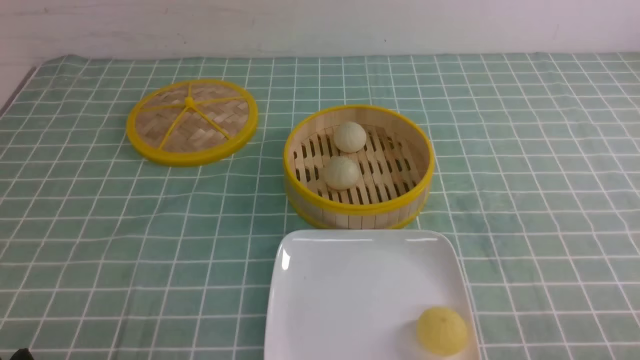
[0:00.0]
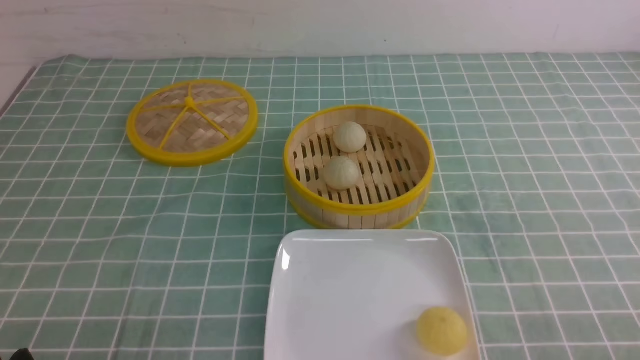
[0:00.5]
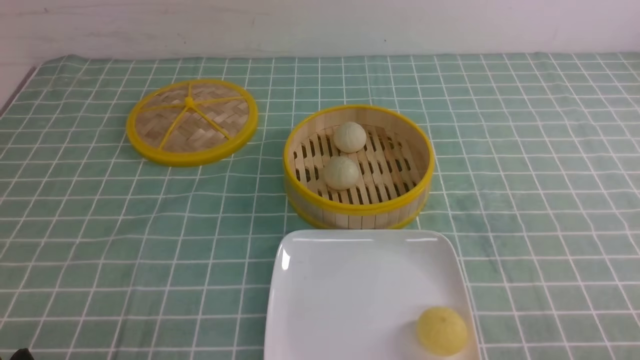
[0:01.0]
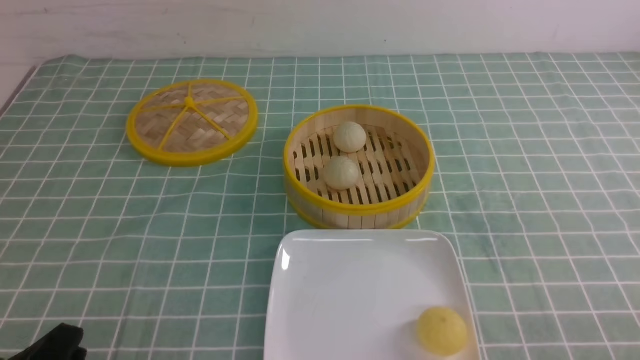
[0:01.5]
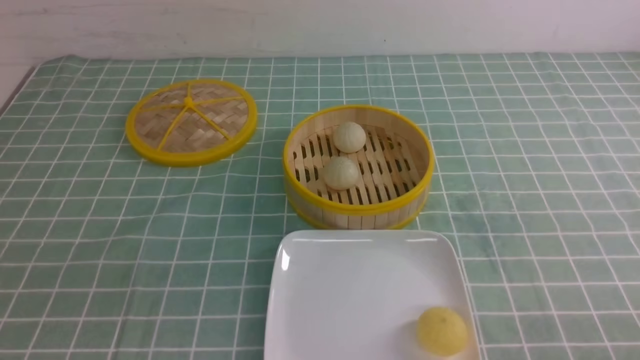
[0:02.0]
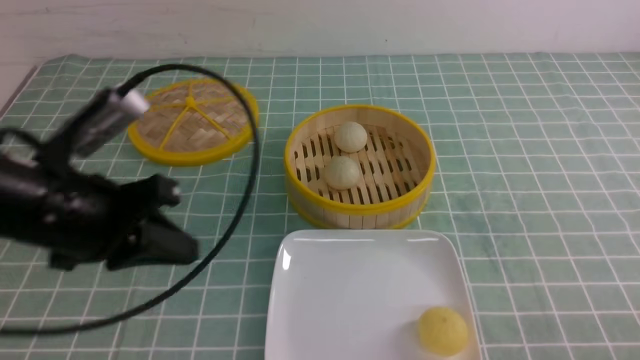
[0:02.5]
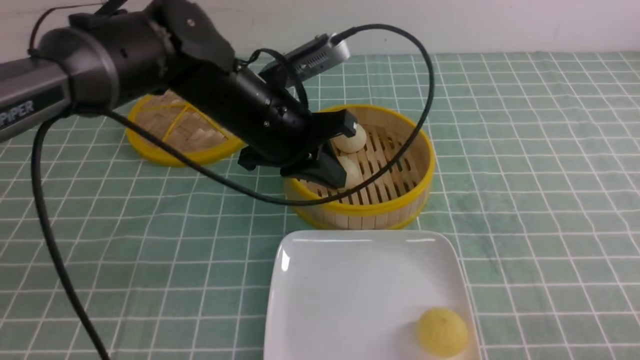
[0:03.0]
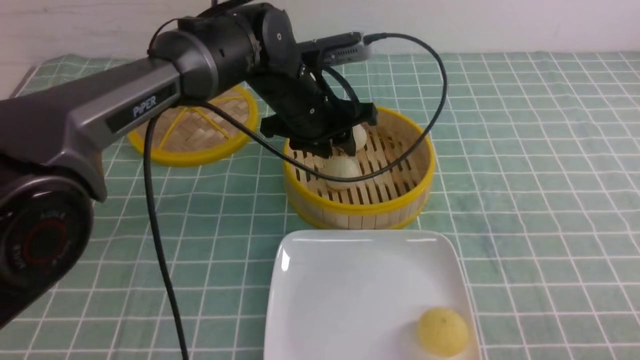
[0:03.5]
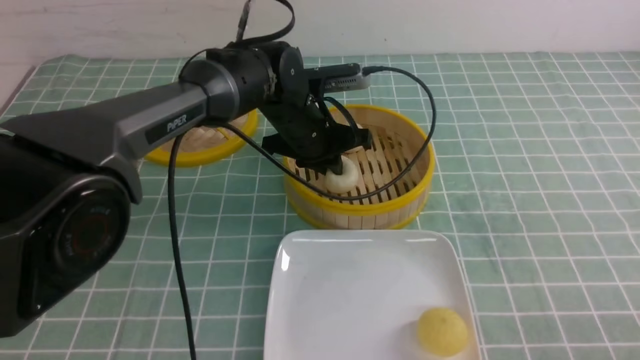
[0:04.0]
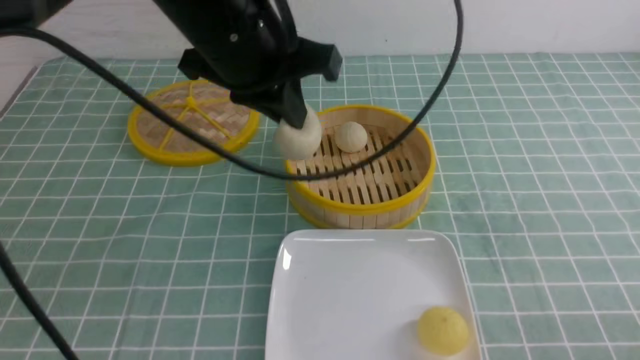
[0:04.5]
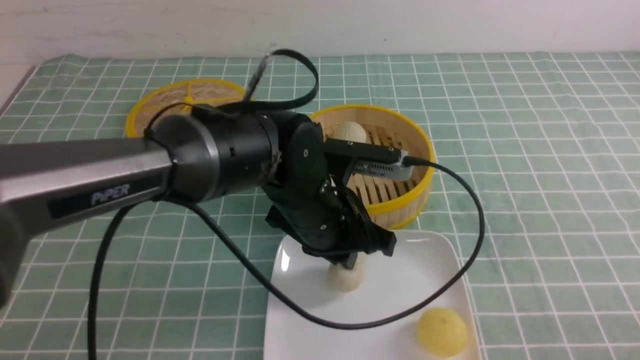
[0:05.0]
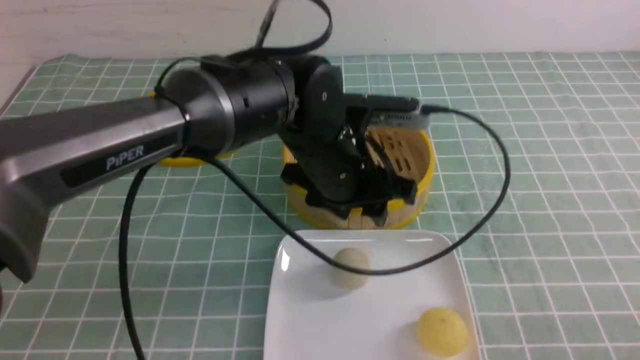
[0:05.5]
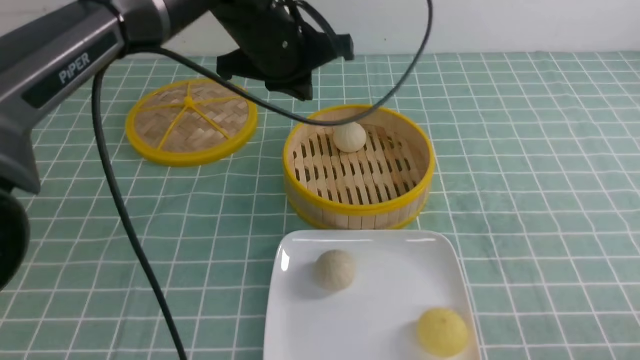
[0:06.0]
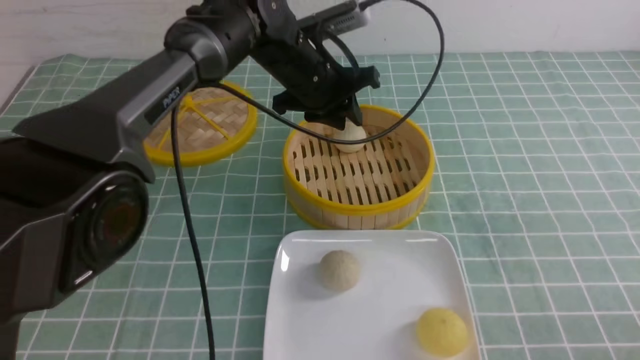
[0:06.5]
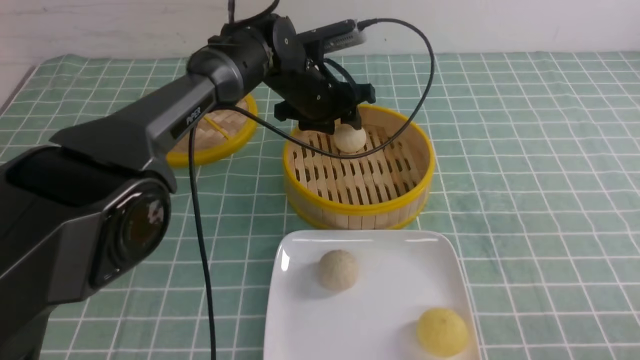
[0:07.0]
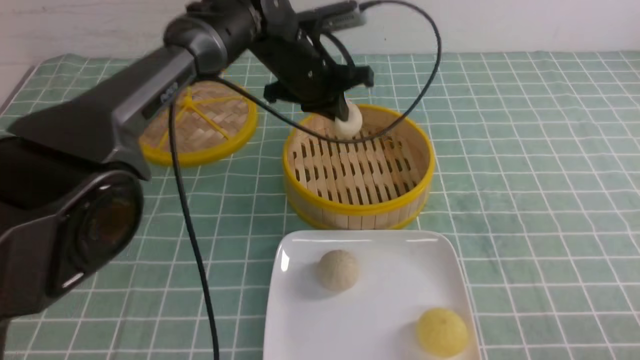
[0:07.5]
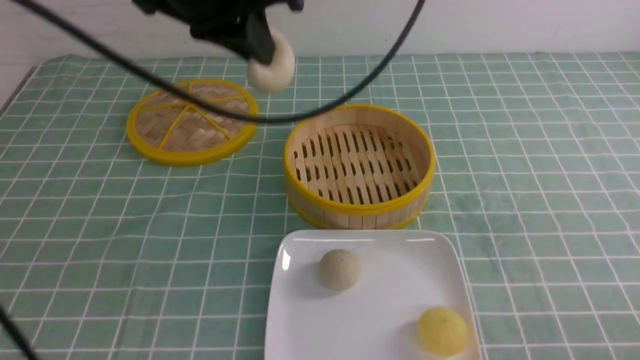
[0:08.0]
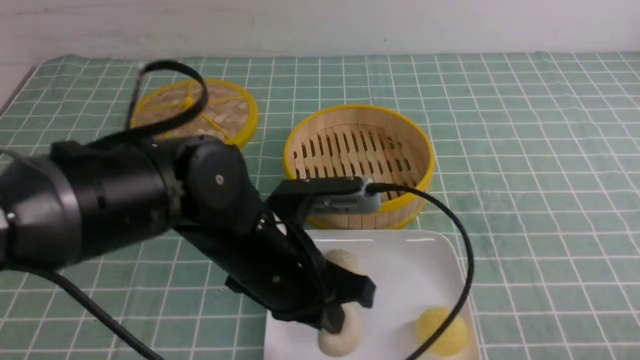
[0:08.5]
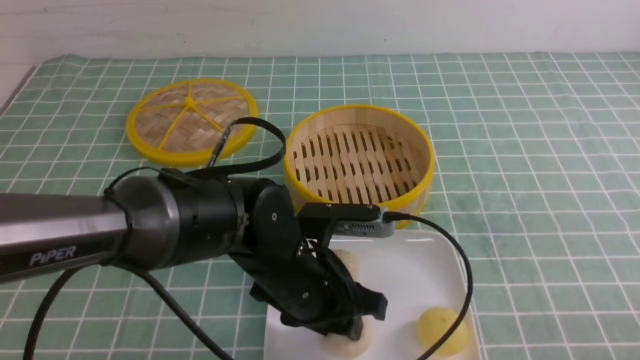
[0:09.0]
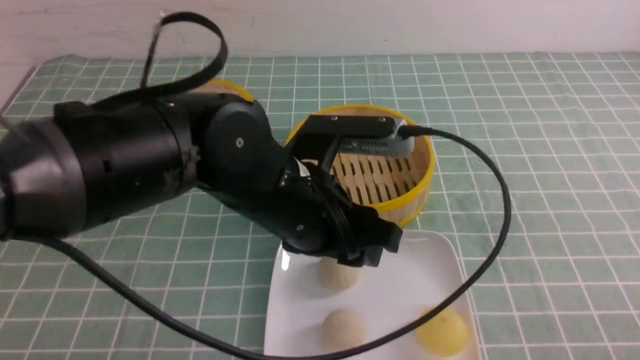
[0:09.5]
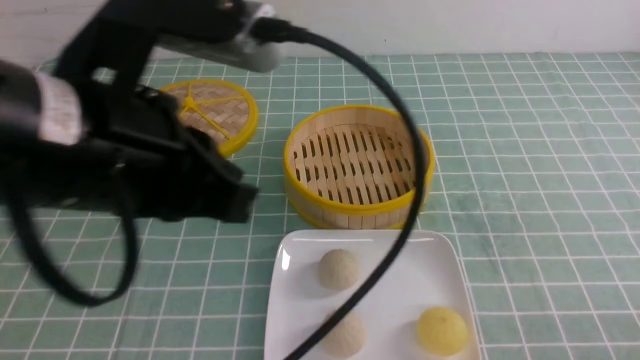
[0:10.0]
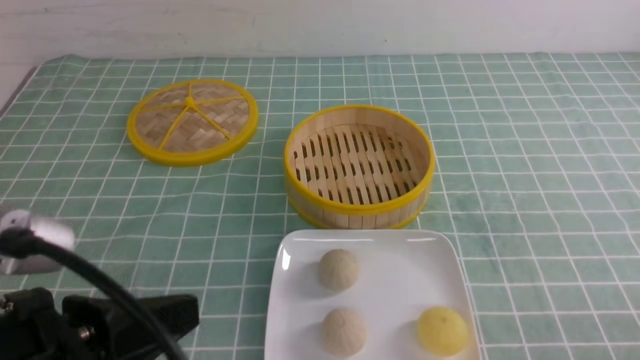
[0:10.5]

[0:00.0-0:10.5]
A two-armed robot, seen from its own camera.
Step, 0.0 to 4.0 s: use the left arm to grab the steamed stuffed bun that is closest to it.
Step, 4.5 to 5.0 s: use the left arm to put the steamed stuffed bun into the plate.
Step, 5.5 to 7.0 s: use the left arm to grab the steamed stuffed bun that is closest to it.
Step, 7.5 to 9.0 s: use the left arm to put the steamed stuffed bun into the plate.
2.0 to 4.0 s: The left gripper heads forward and to the right, covering some 40 cm, and opens and closes again.
4.0 to 6.5 s: The left gripper goes backward and returns, about 15 cm each way.
6.5 to 8.5 s: The left gripper shifts about 25 cm backward, and closes its fingers.
8.5 to 10.5 s: The left gripper goes up and down, some 20 cm each way, reversing 2 times, and opens, then closes again.

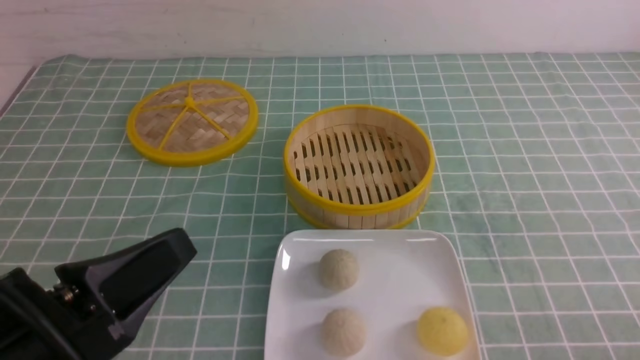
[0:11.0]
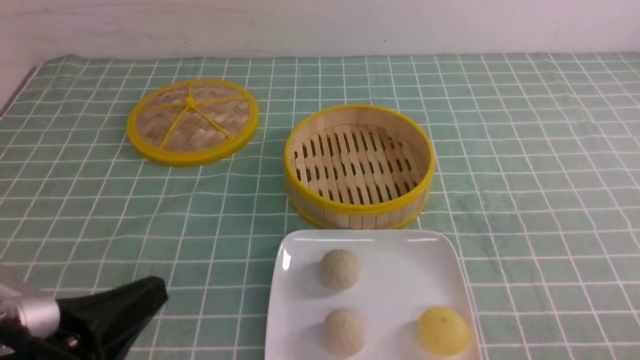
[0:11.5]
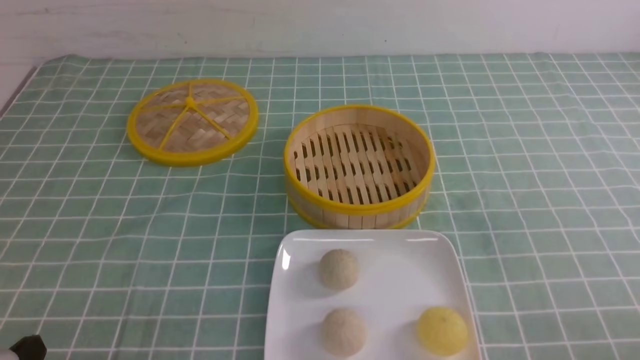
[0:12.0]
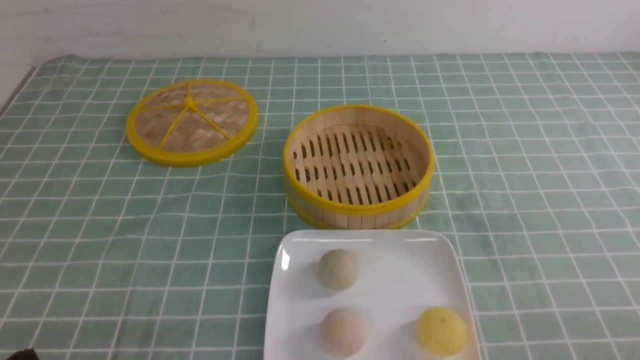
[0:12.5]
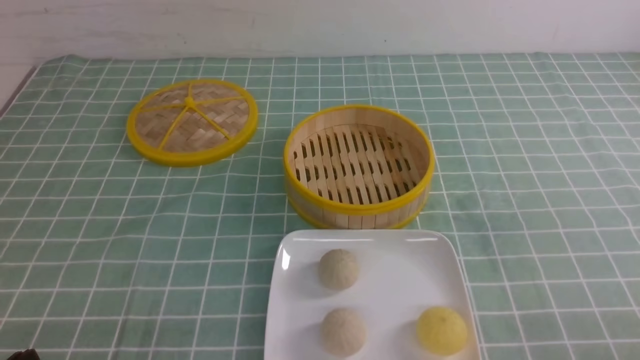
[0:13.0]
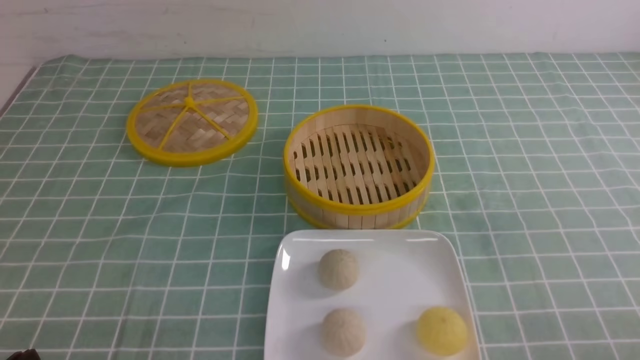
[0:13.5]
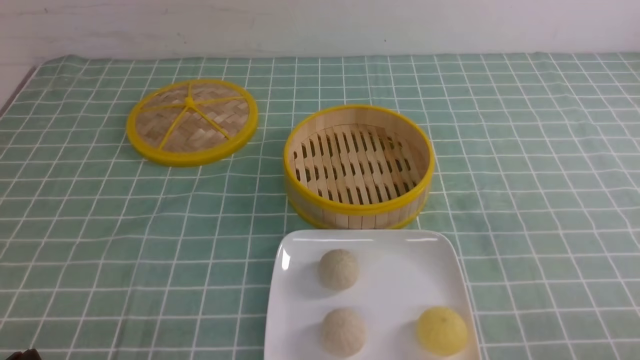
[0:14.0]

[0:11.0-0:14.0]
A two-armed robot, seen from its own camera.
11.0 to 12.5 s: The left gripper moves downward and to the left, some 15 cm.
12.5 to 14.0 s: The two grippers keep their place.

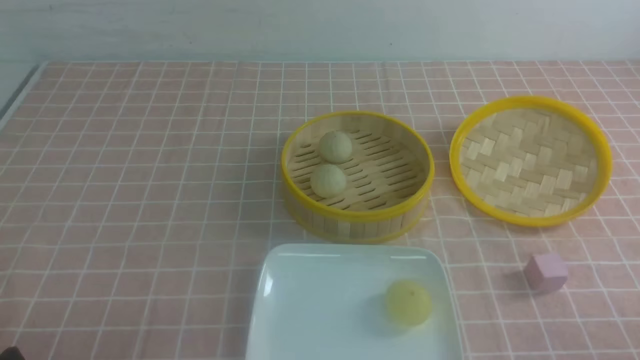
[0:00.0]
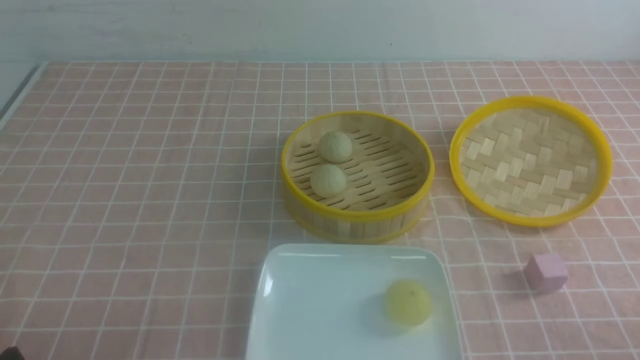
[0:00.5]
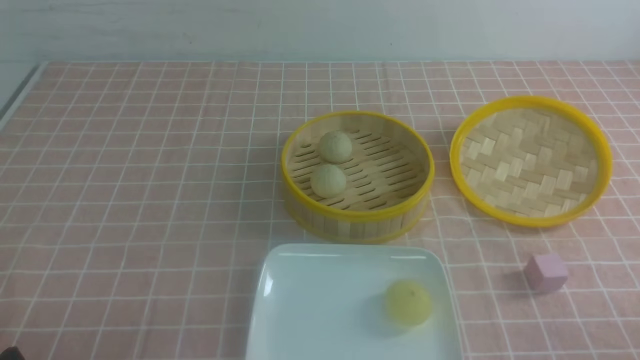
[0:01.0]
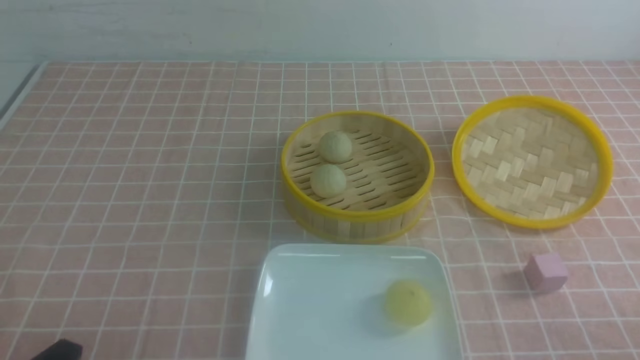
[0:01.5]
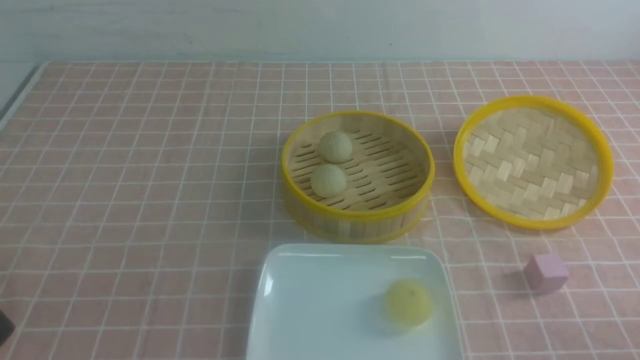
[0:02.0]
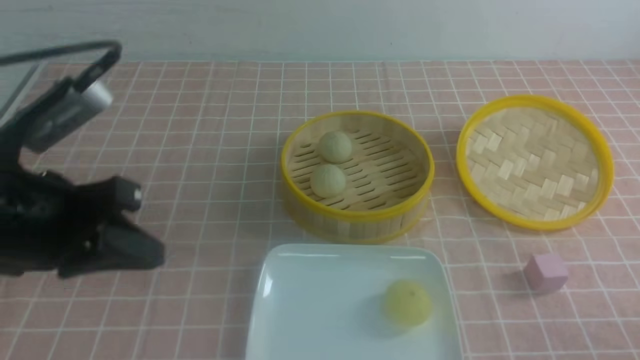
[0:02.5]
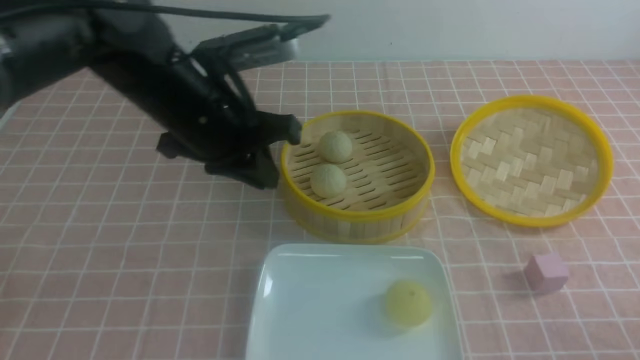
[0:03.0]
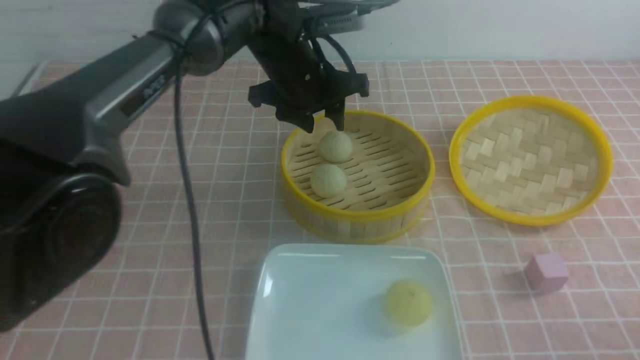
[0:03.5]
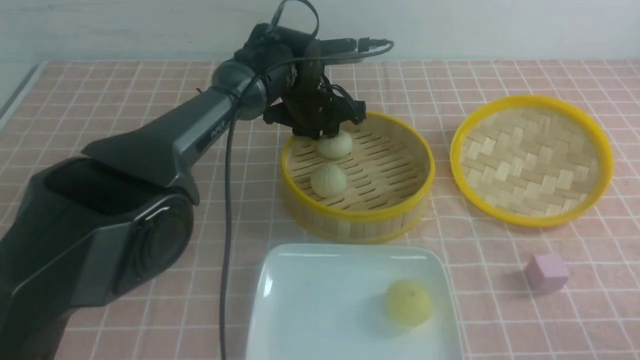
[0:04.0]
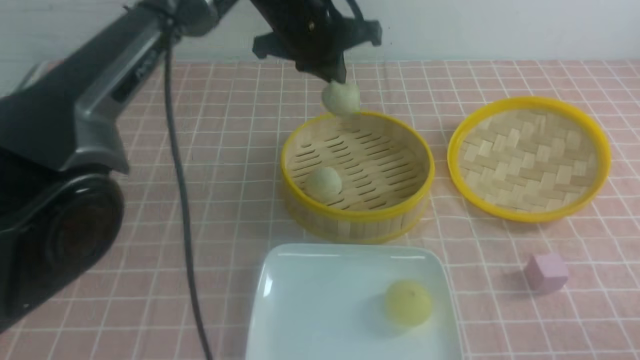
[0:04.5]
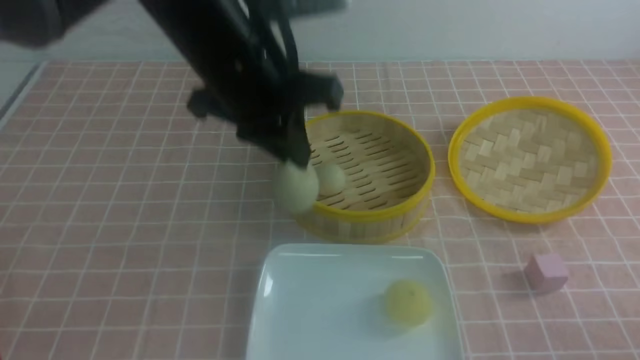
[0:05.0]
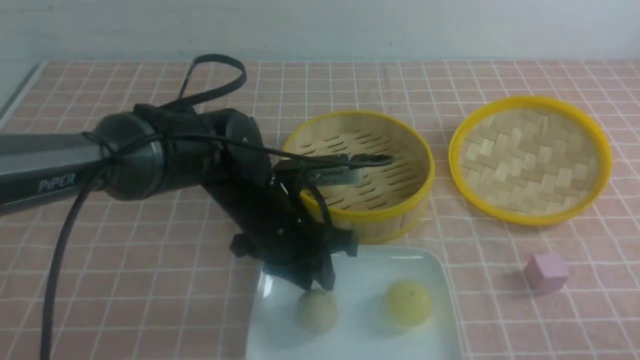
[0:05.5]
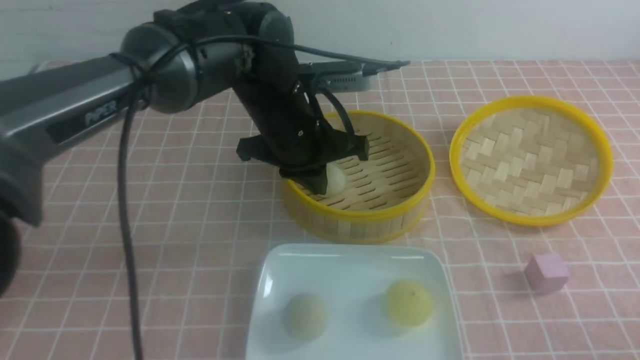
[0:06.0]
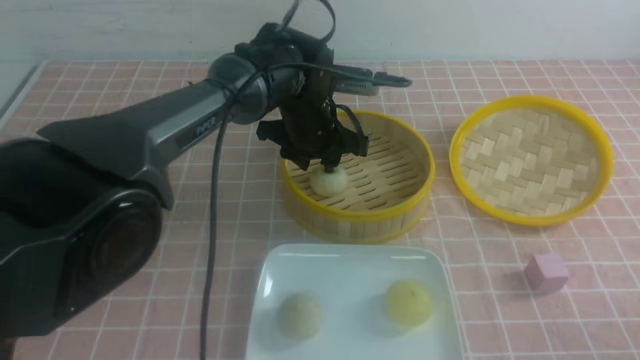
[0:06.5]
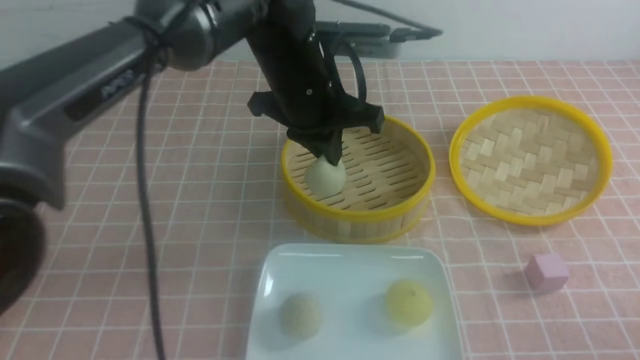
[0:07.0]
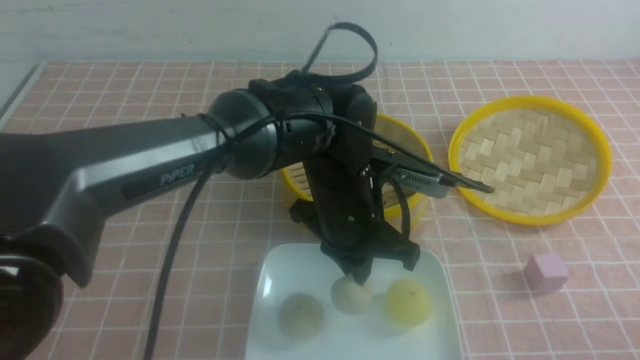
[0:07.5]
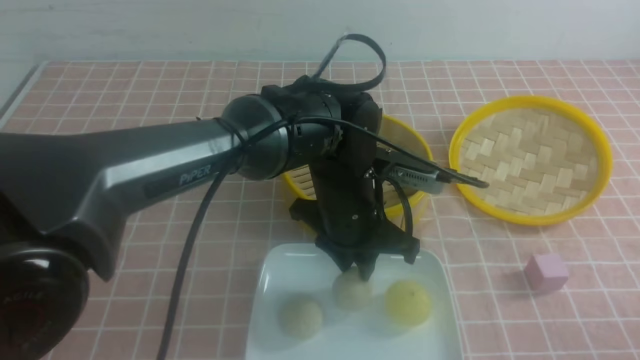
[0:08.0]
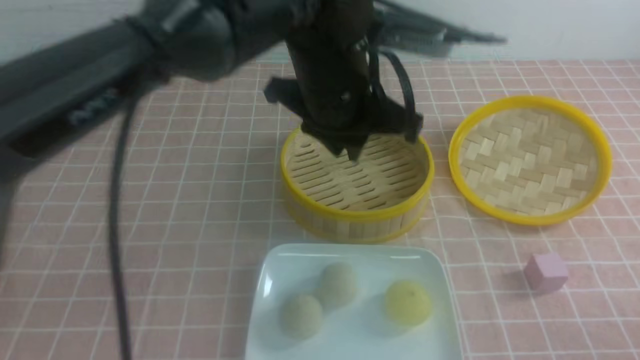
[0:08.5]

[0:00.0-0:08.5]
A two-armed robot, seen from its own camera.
Step, 0.0 to 4.0 s: use the left arm to grab the steamed stuffed bun that is closest to it.
Step, 4.5 to 5.5 s: use the left arm to put the steamed stuffed bun into the plate.
Step, 6.0 to 6.5 s: use the left arm to grab the steamed stuffed bun that is closest to it.
Step, 7.0 to 8.0 s: use the left arm to put the steamed stuffed bun into the plate.
2.0 to 4.0 s: The left gripper is displaced forward and to the right by approximately 50 cm, and opens up.
4.0 to 6.5 s: The left gripper travels backward and back again, some 20 cm each way, and closes, then opens again.
6.5 to 8.5 s: The left gripper swings up and down, some 15 cm each way, with 2 reversals.
